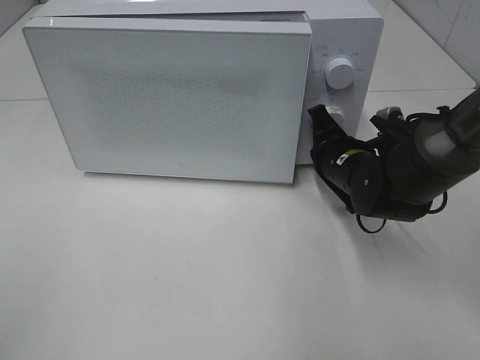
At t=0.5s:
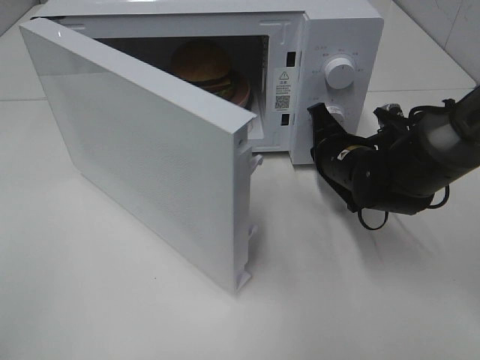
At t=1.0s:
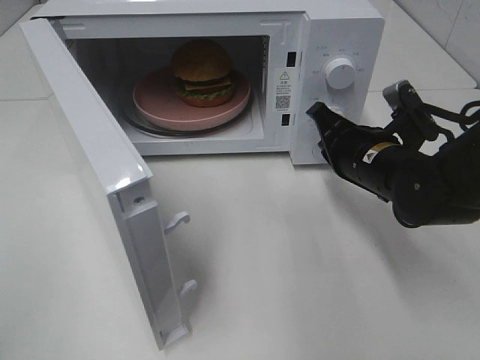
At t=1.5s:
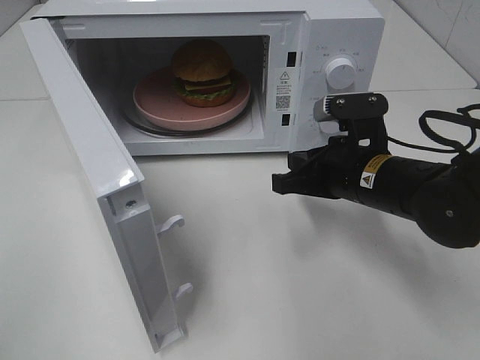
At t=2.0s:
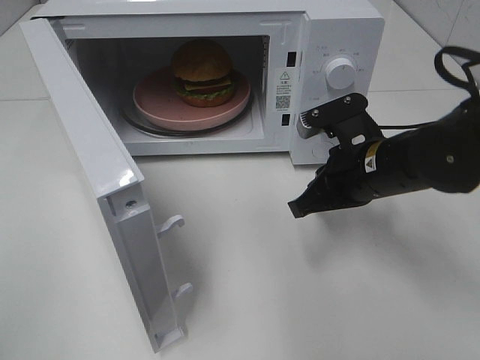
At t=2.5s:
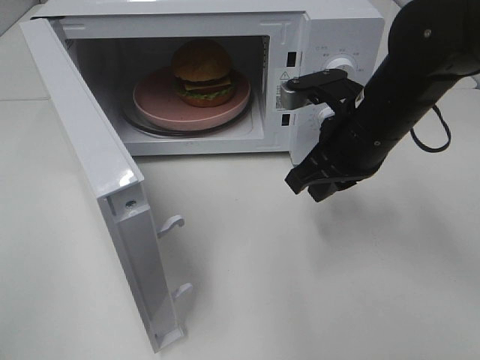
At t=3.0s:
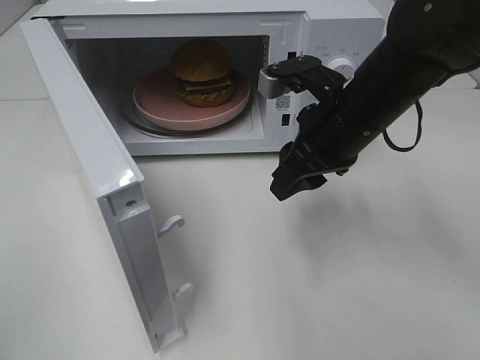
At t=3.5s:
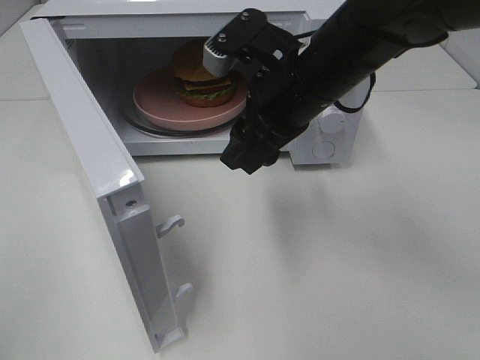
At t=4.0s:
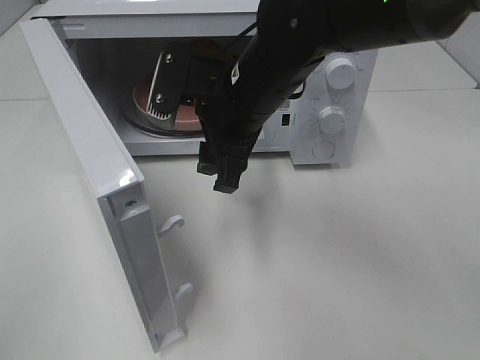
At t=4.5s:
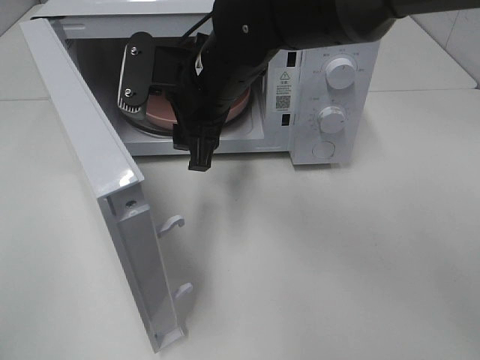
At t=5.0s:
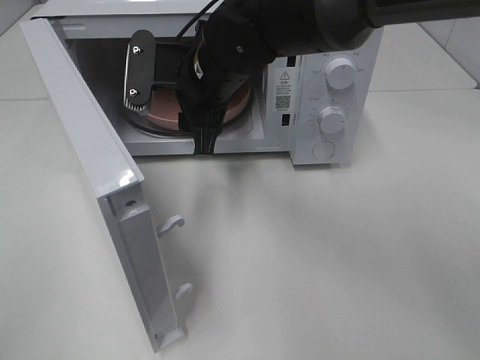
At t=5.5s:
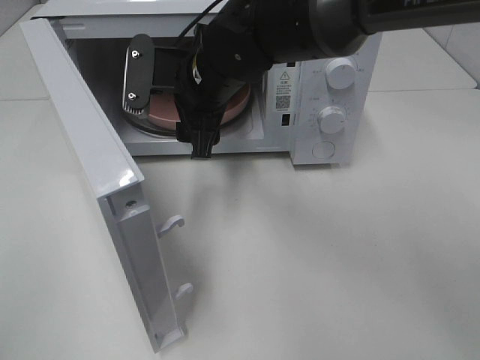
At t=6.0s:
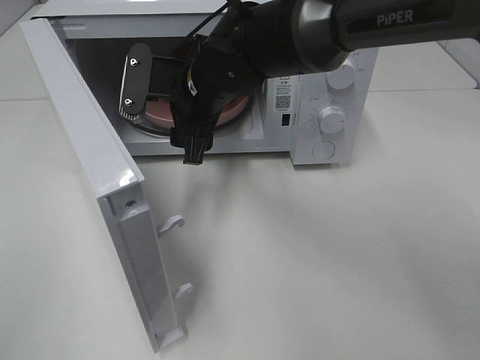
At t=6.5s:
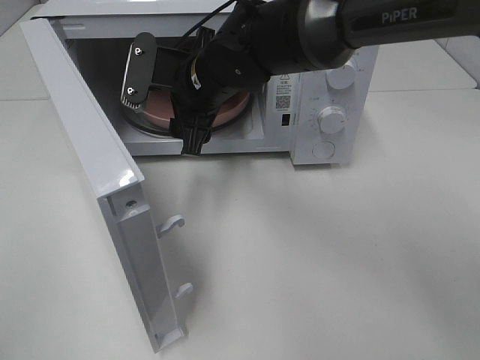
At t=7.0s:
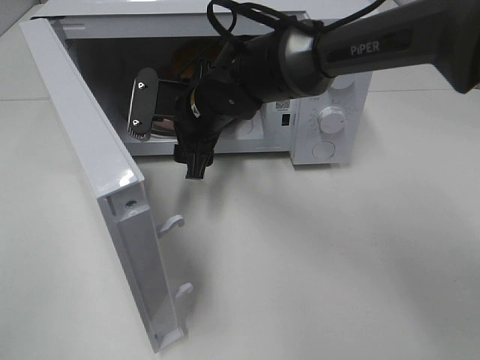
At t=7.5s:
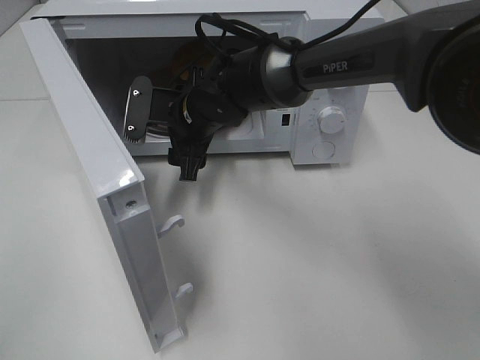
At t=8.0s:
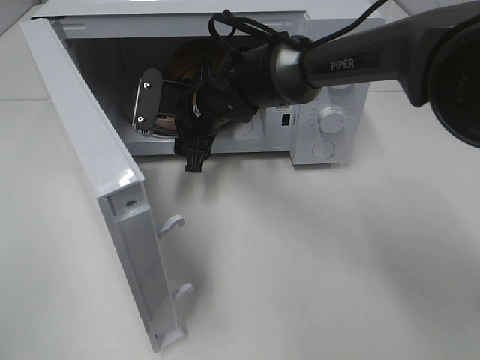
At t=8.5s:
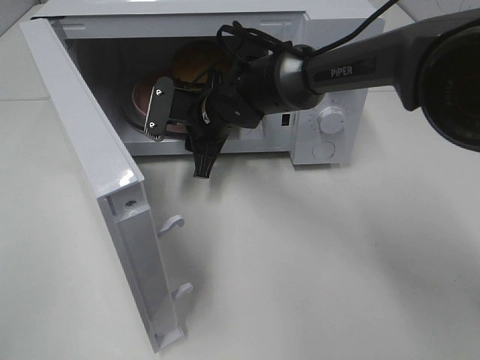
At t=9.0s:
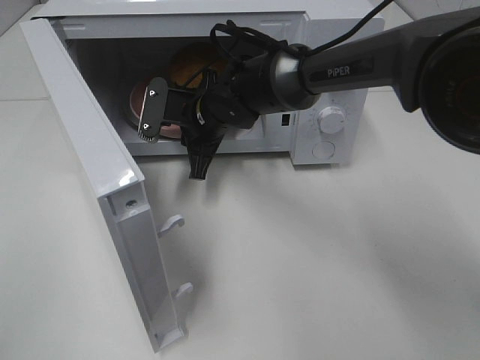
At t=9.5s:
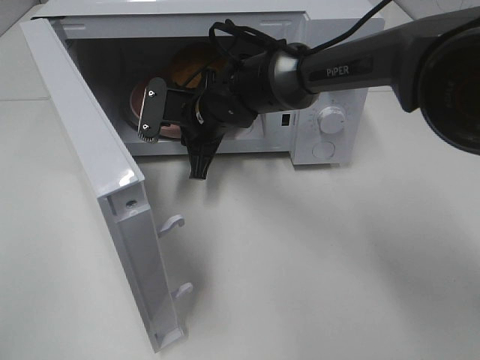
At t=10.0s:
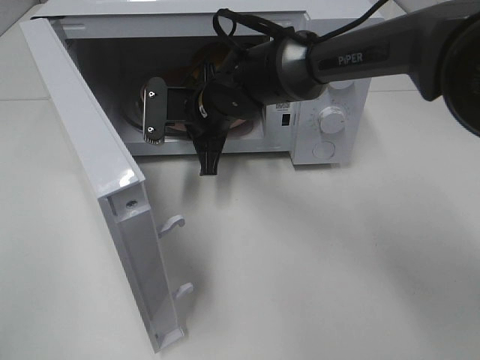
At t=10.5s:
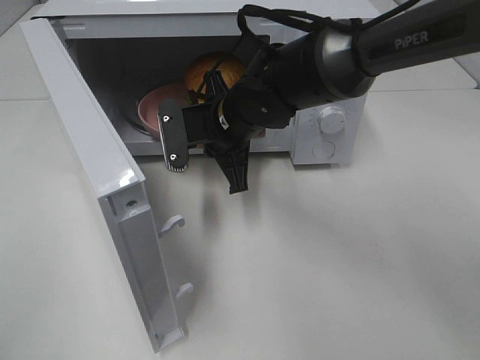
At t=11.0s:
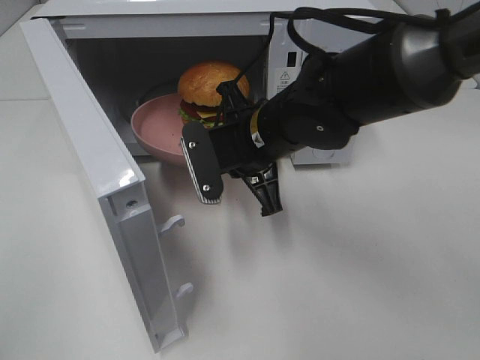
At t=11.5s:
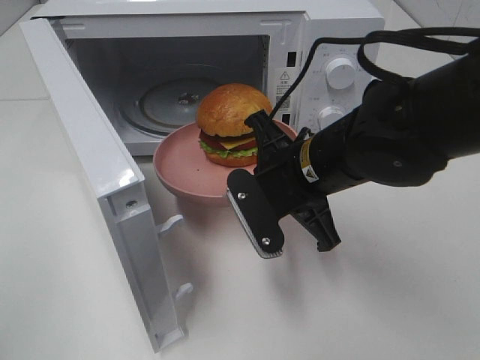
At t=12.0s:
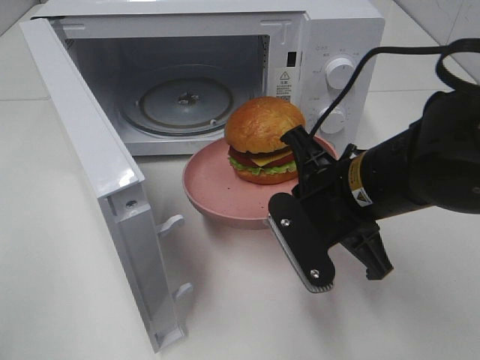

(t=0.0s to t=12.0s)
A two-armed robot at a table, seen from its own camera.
Task of the whole recording: Heat the burger.
Step, t=1.0s - t=9.5s: Right hand: grab the plate with the hamburger.
t=0.0s - t=2.0s: The right gripper is displaced backward and upward by roughly 10 cm.
t=2.0s - t=4.0s: The right gripper shifts approximately 15 cm to the left and upward, and opens up.
t=4.0s - t=6.0s: The right gripper shifts some 5 cm forward.
t=6.0s - t=8.0s: The right gripper shifts about 5 cm downward.
t=8.0s - t=10.0s: The right gripper closes.
t=10.0s - t=12.0s: The right gripper moves backward and to the right, about 20 cm.

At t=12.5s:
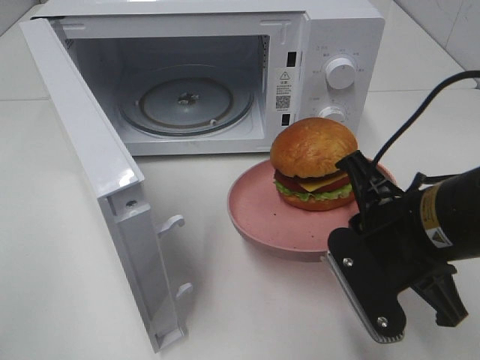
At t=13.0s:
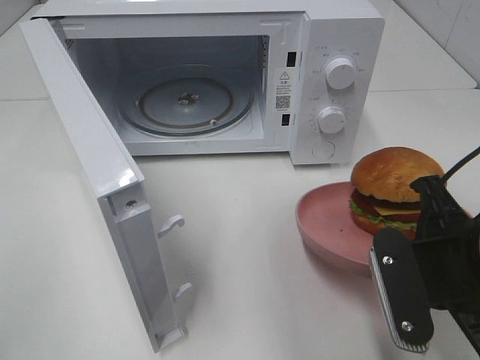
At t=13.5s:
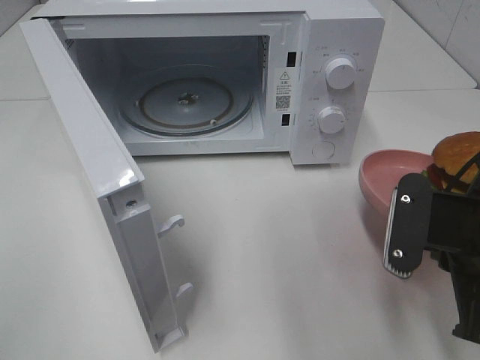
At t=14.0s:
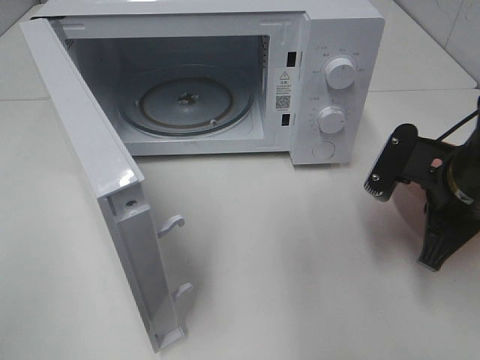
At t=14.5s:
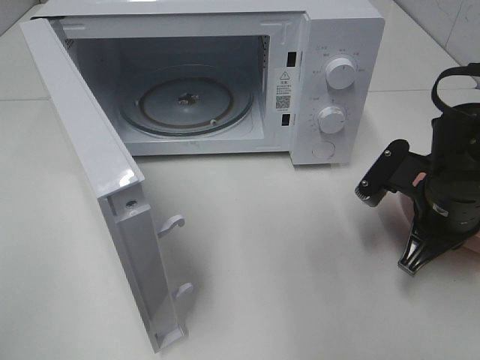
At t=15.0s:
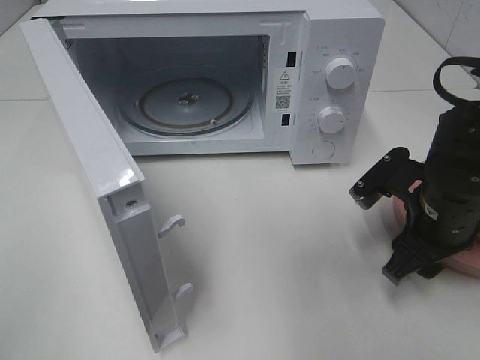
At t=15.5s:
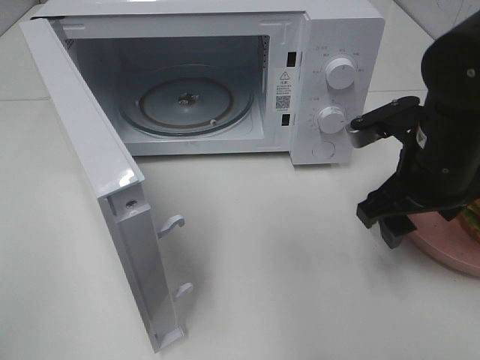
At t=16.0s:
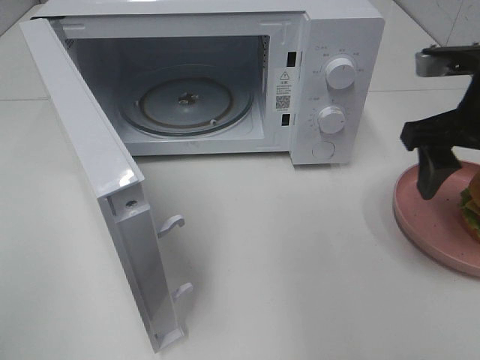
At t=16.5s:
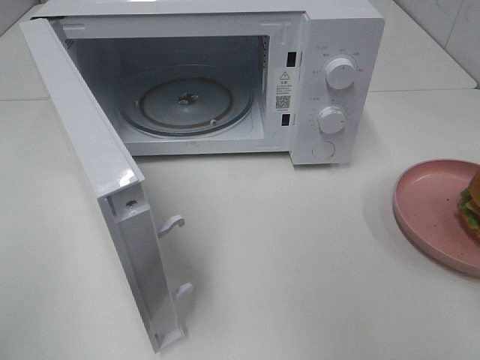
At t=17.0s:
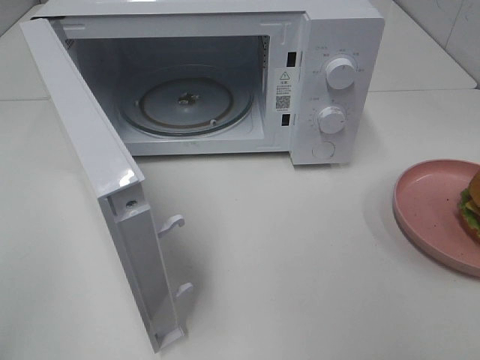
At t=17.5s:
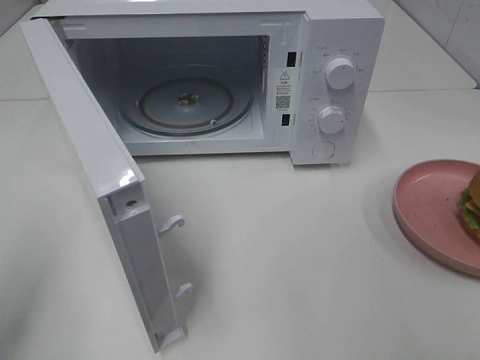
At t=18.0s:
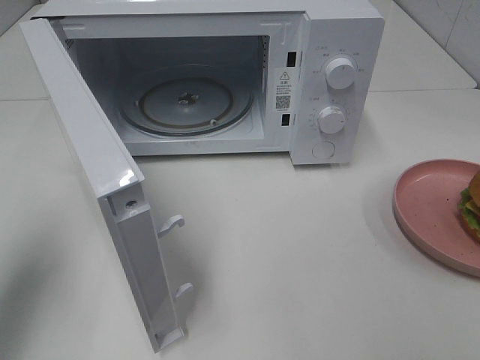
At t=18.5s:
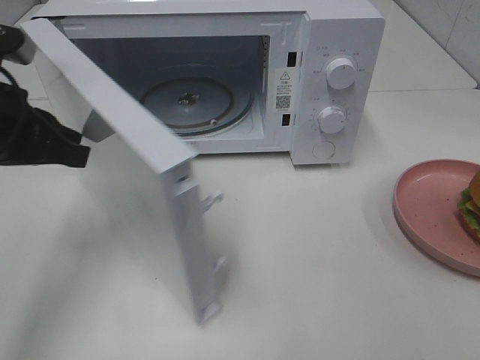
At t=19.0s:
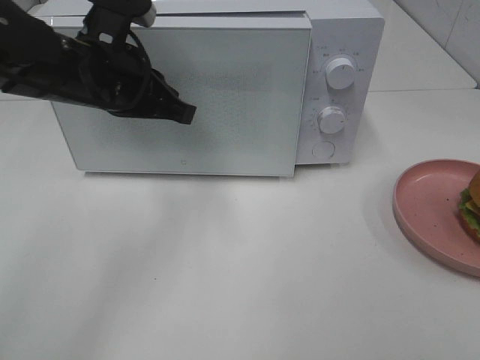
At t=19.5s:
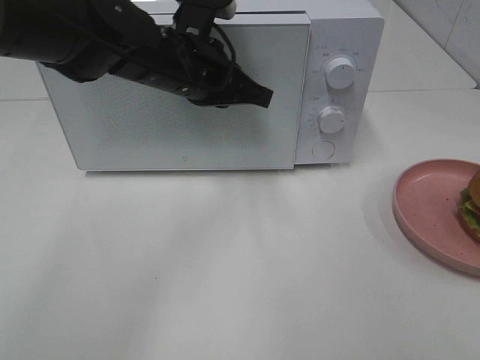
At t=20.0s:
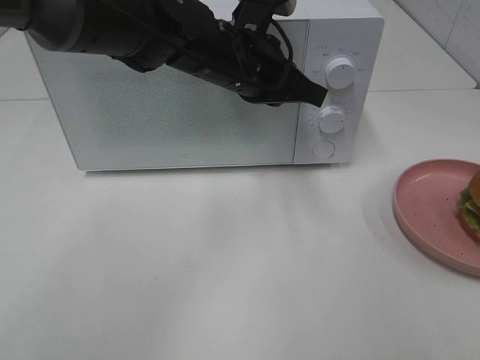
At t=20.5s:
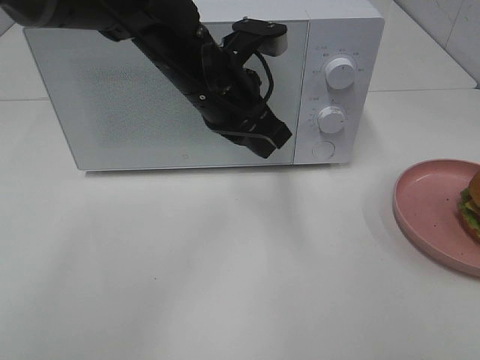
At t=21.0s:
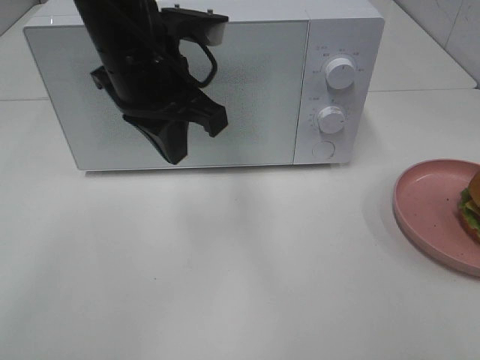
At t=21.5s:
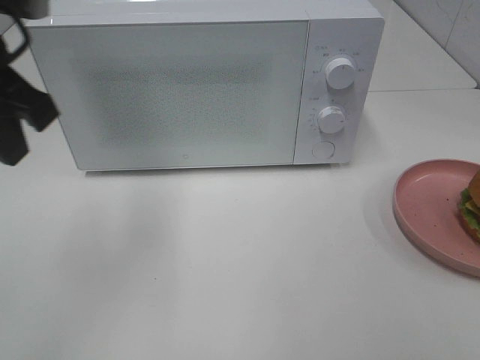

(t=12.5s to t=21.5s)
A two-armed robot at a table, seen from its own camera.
Task of the whole recording: Heat the burger.
Step, t=12.5s - t=14.5s: Right hand: place the plate on the table.
Step, t=15.0s - t=19.5s: Left hand: close the microwave door.
t=12.5s - t=14.5s: The right gripper travels forward, to the right and downward by approximately 10 cm.
t=14.5s - t=17.0s: The right gripper shifts some 25 cm backward, upward and to the right, and opens its fingers.
t=17.0s - t=19.5s: The left gripper moves forward and to the right, some 40 cm. Meanwhile the right gripper is displaced backward by about 10 cm.
t=19.5s - t=21.5s: The left gripper shifts approximately 20 cm to the left, backward and upward.

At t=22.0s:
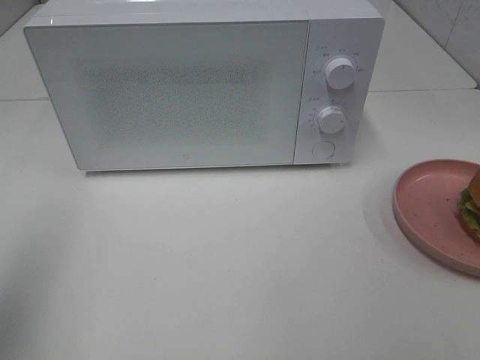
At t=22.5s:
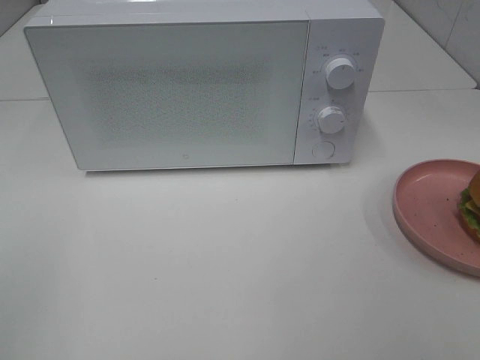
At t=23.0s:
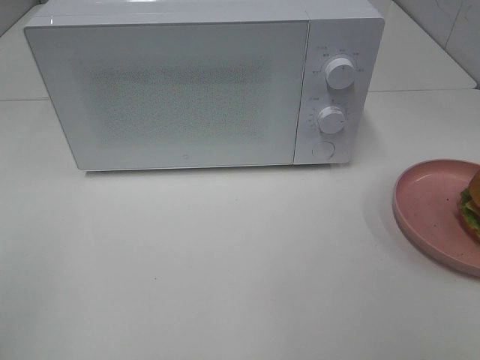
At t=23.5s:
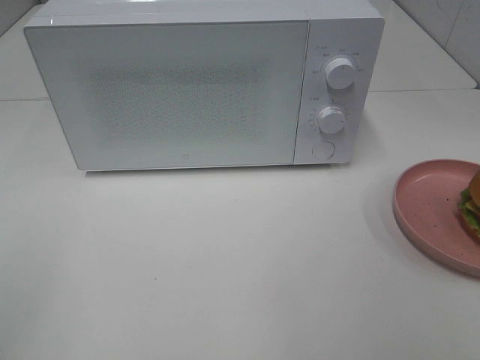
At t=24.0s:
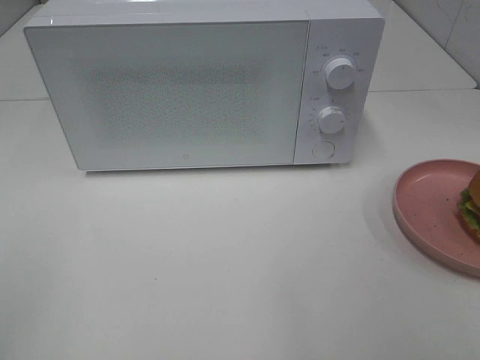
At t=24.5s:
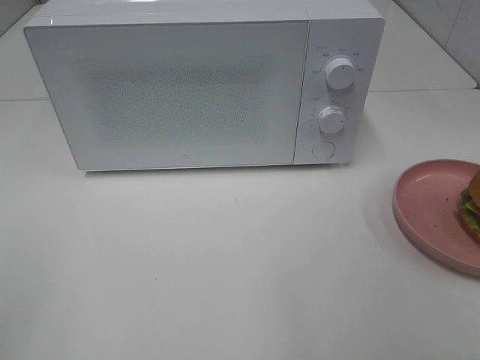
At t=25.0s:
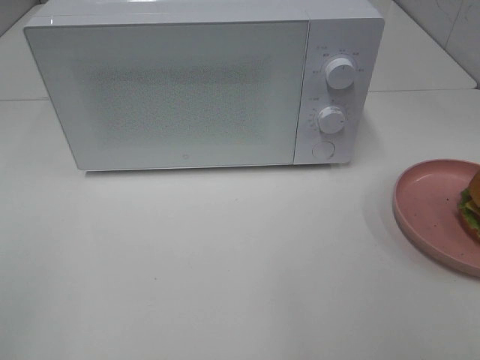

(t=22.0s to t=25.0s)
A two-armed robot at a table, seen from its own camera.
Task of the whole recording: Heat the burger.
t=22.0s - t=23.5s: The left gripper goes about 10 cm backward.

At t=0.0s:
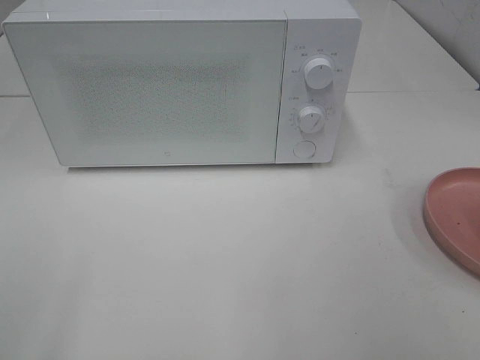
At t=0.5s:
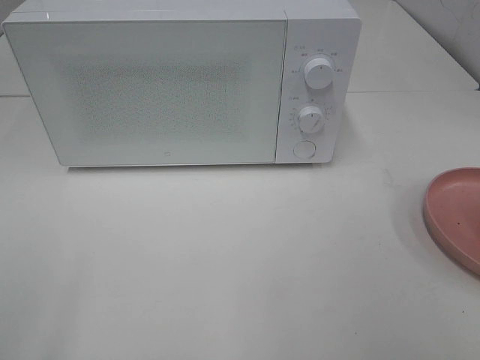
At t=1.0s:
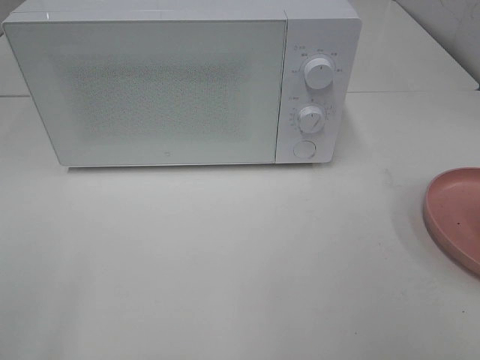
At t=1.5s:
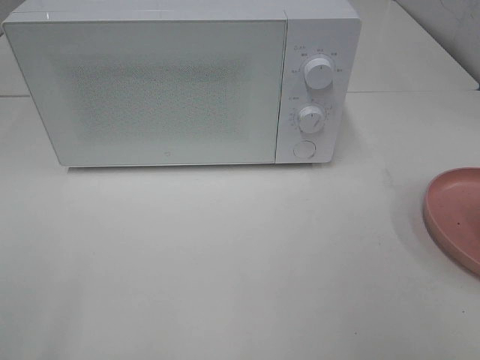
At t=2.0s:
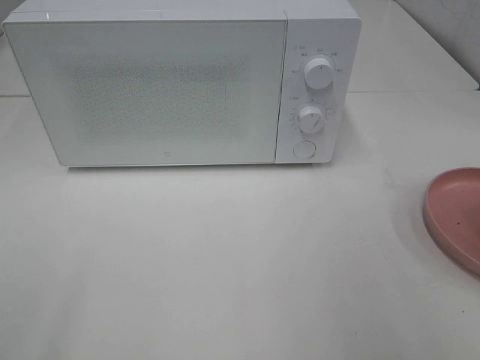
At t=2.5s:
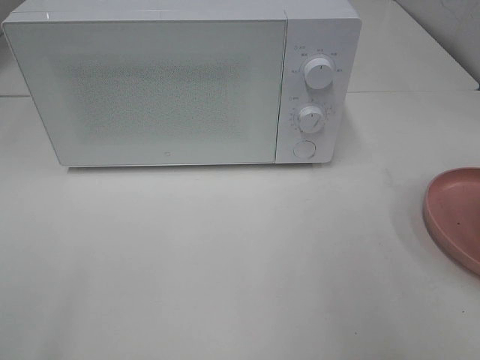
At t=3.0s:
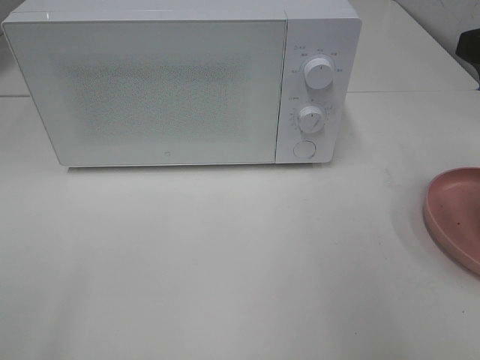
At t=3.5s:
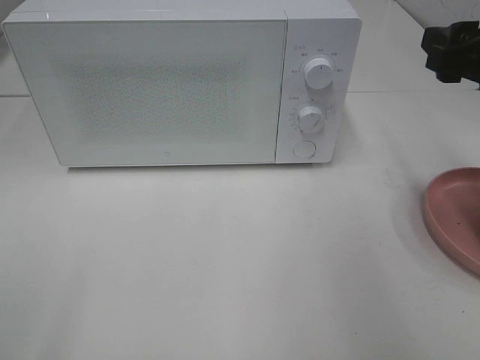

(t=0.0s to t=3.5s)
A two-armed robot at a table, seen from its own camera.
Task of the whole recording: Heat the burger.
t=2.0s - t=3.5s: The right gripper is displaced forward by roughly 15 cm.
